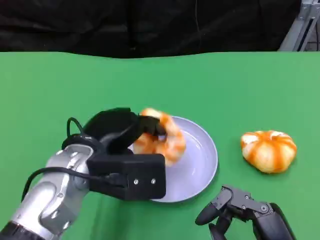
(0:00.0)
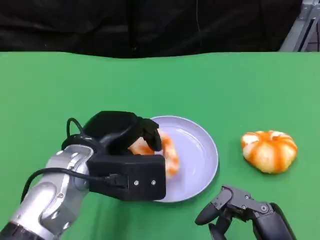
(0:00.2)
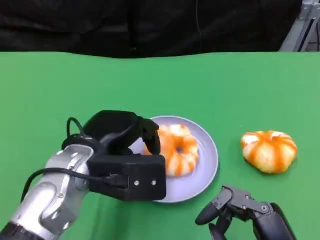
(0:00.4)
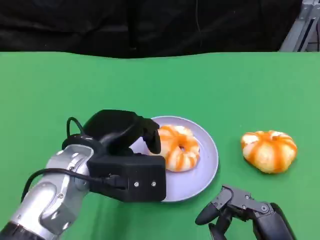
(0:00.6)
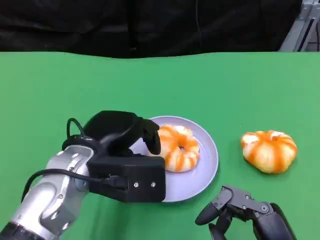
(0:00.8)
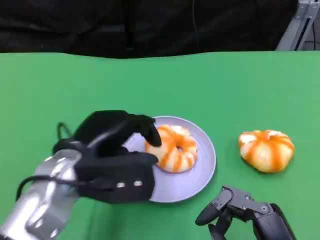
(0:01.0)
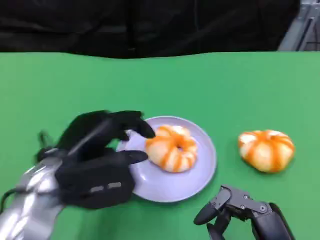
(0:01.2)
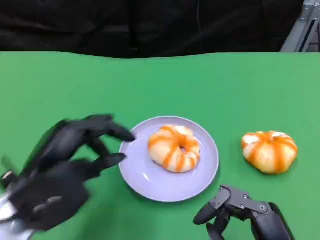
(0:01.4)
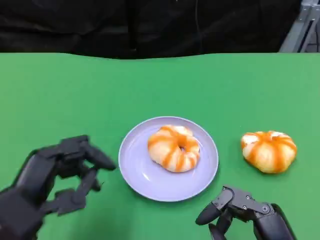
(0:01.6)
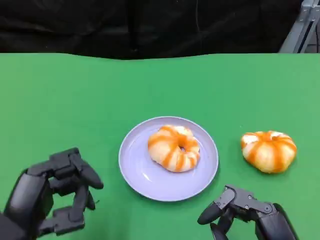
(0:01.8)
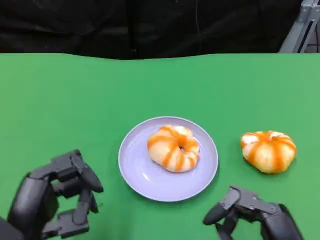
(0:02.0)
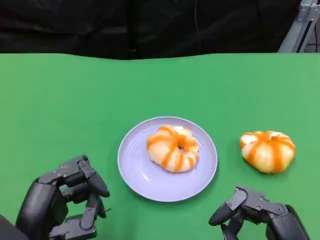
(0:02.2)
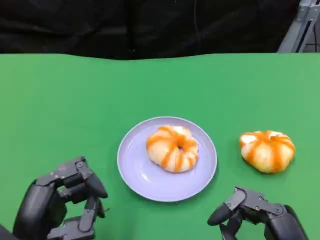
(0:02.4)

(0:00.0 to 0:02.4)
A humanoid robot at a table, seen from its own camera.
Task of the whole recording: Grasp the bread from the table and place it into the plate.
0:00.0 - 0:01.2: The left hand shifts by about 5 cm.
0:01.2 - 0:02.4: The left hand goes roughly 10 cm backward.

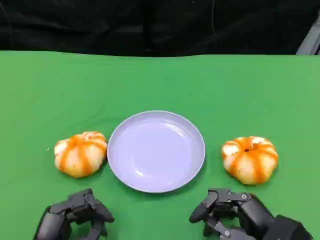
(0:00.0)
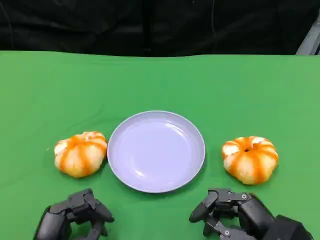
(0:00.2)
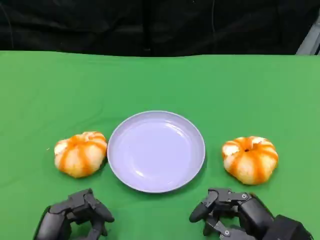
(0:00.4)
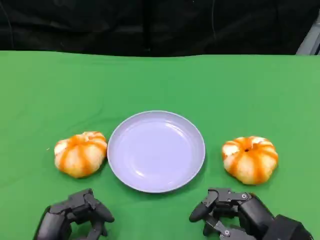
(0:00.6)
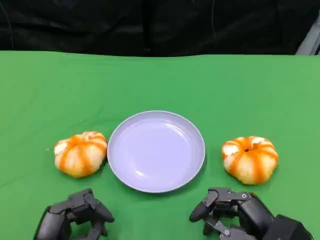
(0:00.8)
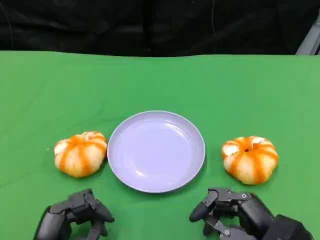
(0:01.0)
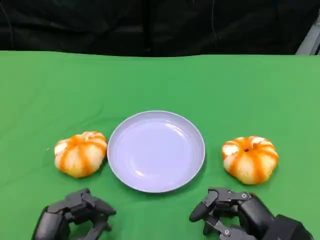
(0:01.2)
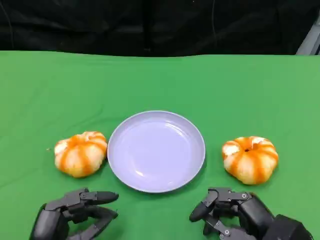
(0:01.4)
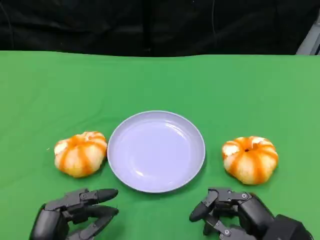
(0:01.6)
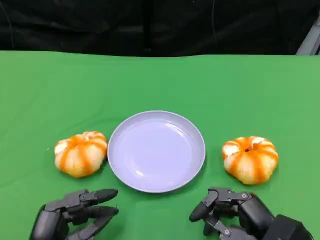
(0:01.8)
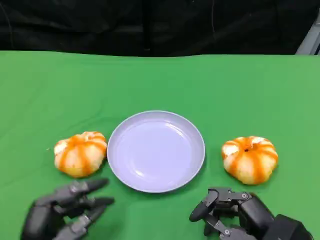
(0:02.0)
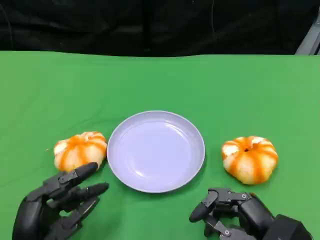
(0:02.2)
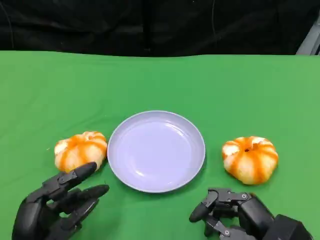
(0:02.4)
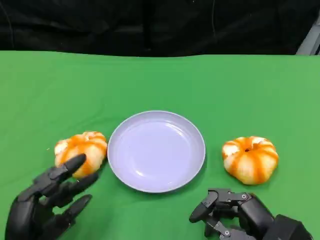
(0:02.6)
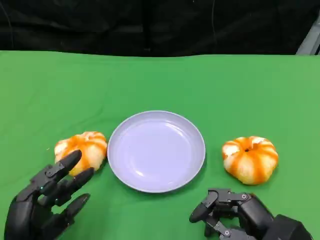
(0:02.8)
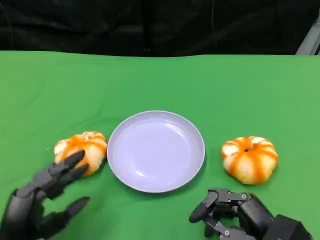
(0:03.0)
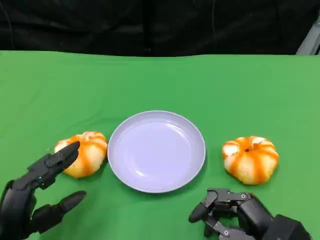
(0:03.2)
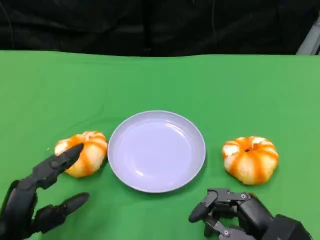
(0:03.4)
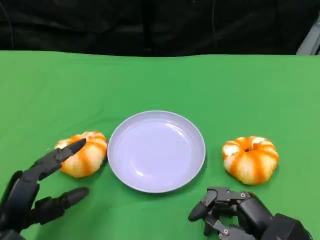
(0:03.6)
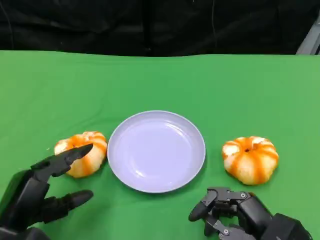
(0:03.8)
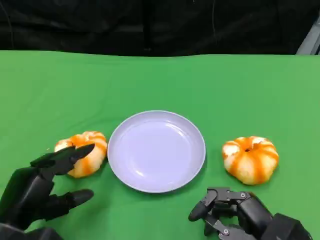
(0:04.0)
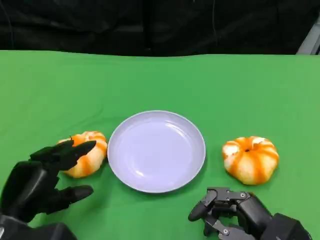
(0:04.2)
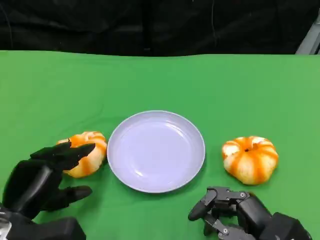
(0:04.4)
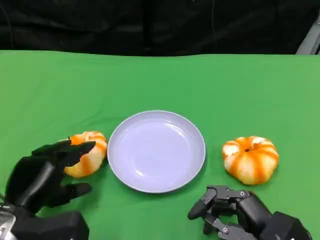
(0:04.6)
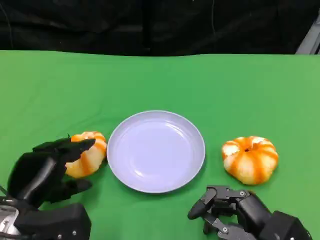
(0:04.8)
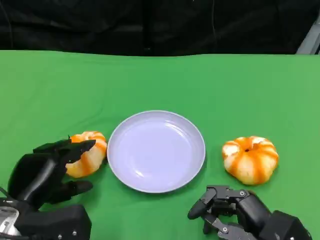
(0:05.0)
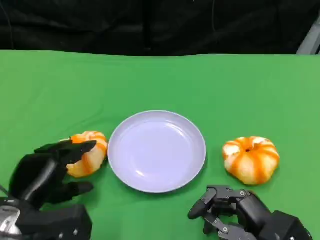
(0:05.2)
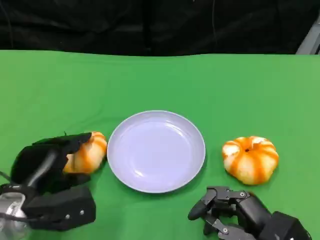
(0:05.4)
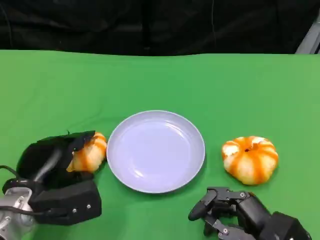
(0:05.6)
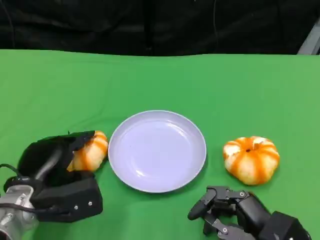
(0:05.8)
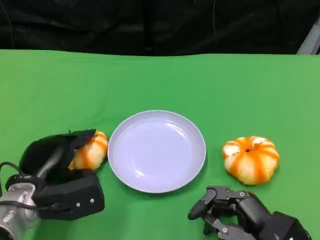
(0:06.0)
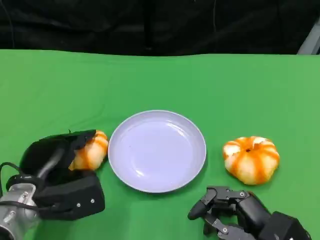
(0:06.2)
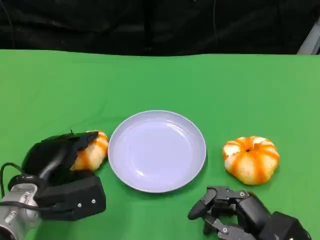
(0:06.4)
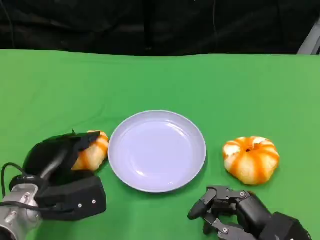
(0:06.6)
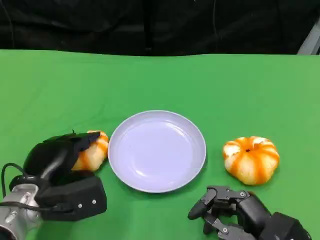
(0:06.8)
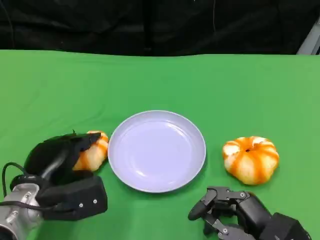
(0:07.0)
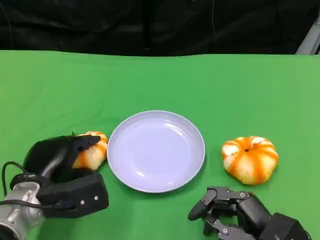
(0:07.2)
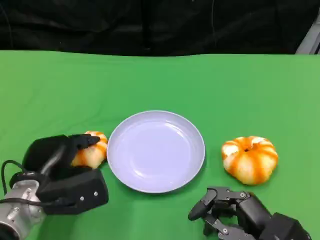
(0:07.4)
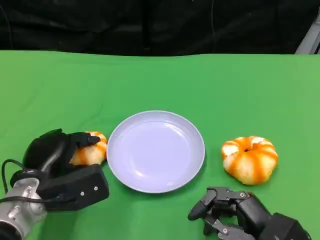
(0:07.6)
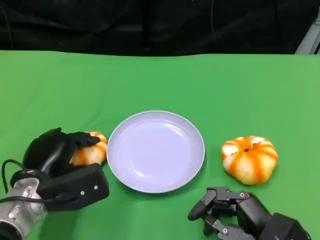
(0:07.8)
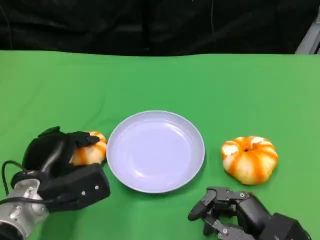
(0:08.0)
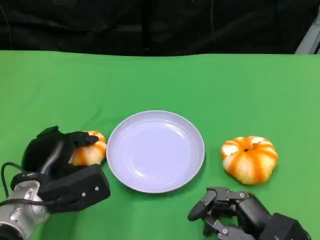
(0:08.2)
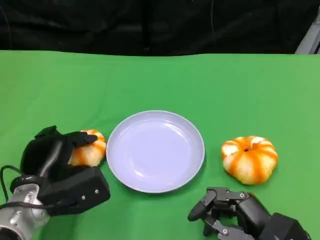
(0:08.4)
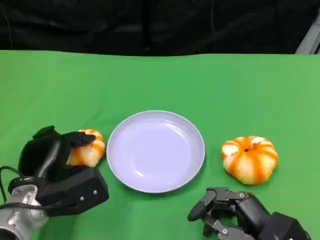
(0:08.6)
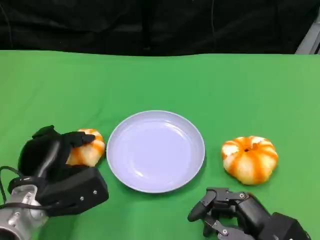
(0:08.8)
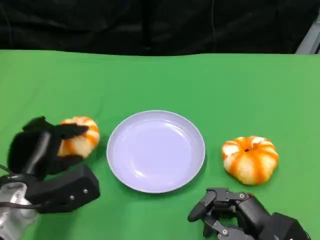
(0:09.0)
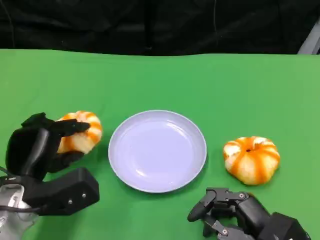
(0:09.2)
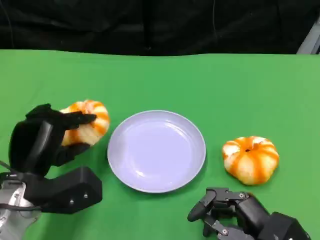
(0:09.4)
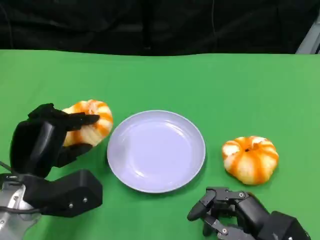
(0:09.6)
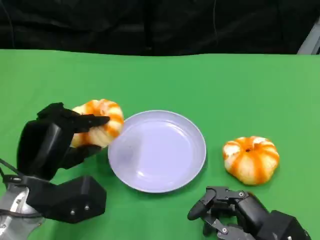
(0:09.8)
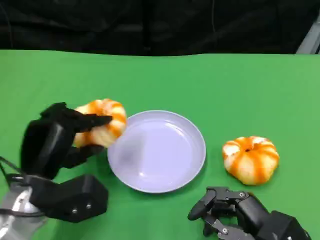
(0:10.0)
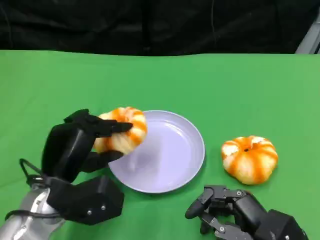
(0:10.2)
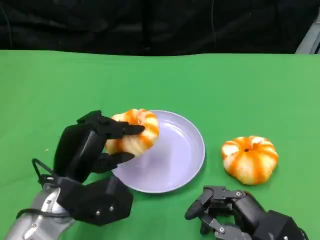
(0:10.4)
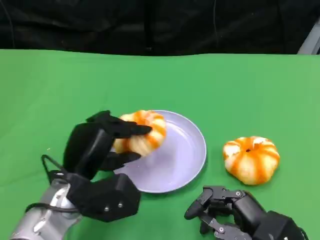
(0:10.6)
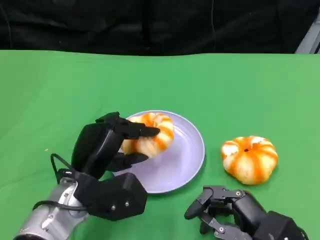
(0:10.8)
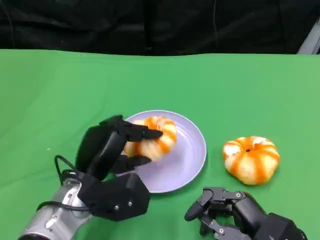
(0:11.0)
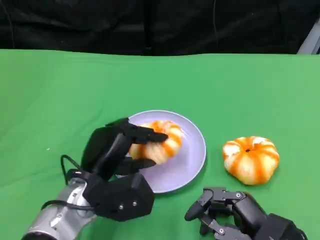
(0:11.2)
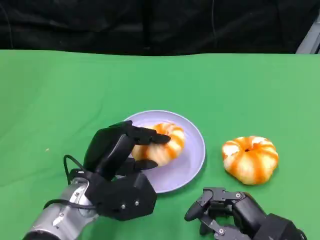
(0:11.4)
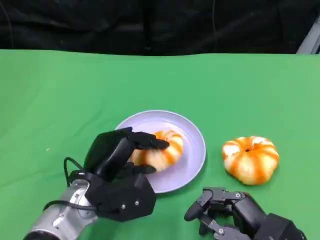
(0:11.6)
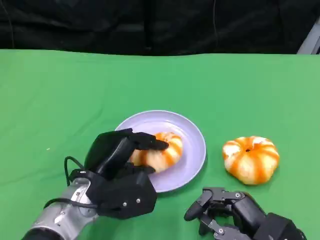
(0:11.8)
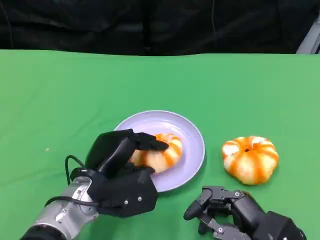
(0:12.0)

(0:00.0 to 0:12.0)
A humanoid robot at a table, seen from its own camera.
Task of the whole recording: Grasp the bread from the table and place it into the plate.
0:00.0 - 0:01.6: The two hands keep their place.
0:01.6 - 0:03.0: The hands make only small movements.
0:03.0 - 0:04.4: The left hand heads forward, covering roughly 5 cm.
0:04.4 - 0:06.0: The left hand ends up some 5 cm from where it was.
0:06.0 - 0:09.0: The hands make only small movements.
0:09.0 - 0:10.4: The left hand travels to the right by approximately 5 cm.
0:10.4 - 0:12.0: The hands make only small movements.

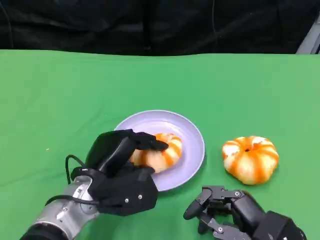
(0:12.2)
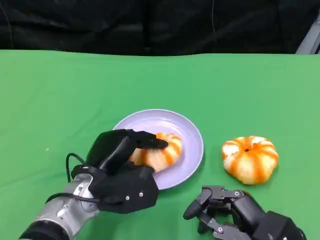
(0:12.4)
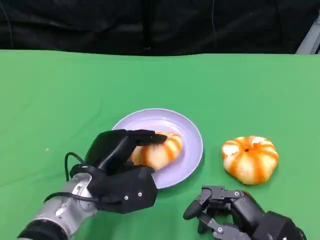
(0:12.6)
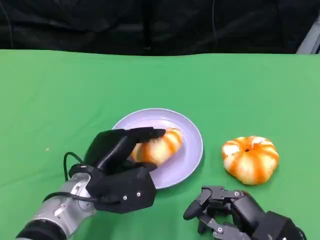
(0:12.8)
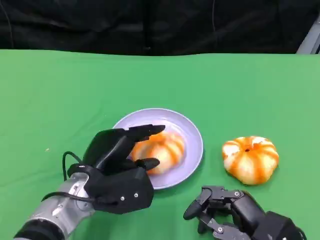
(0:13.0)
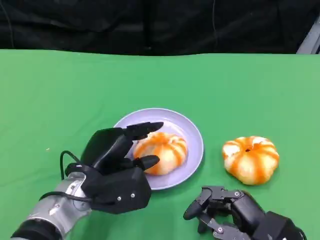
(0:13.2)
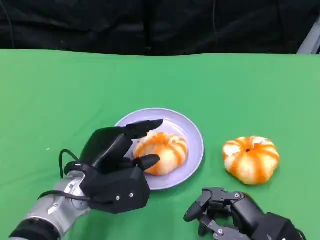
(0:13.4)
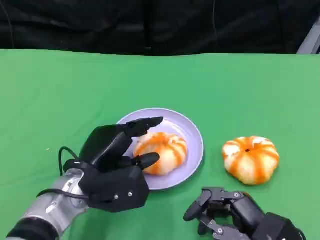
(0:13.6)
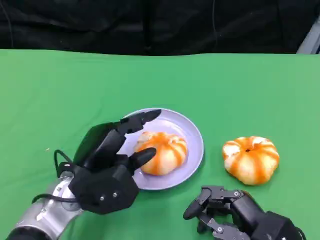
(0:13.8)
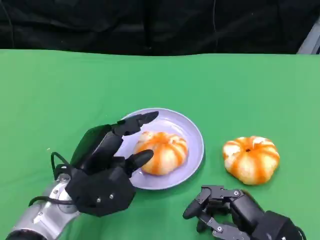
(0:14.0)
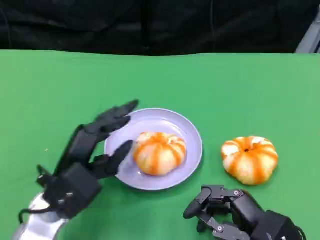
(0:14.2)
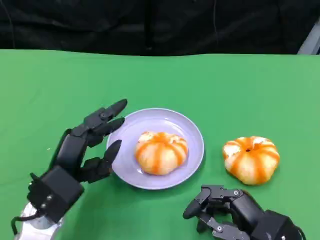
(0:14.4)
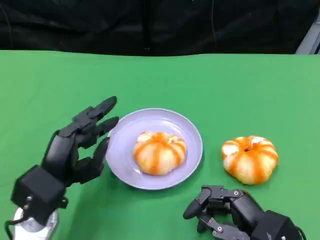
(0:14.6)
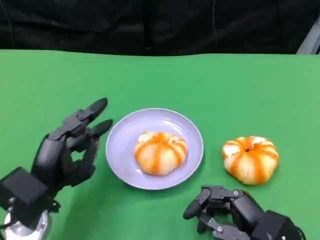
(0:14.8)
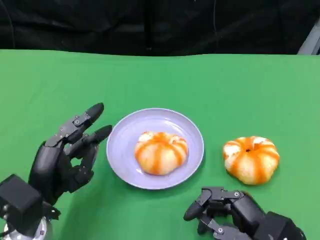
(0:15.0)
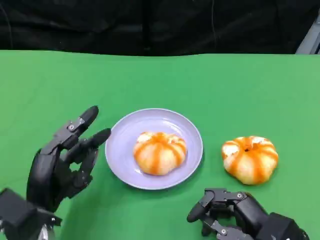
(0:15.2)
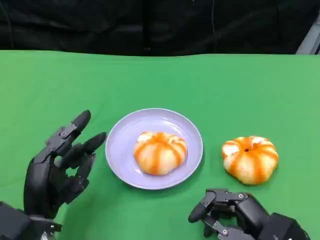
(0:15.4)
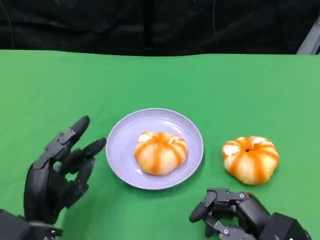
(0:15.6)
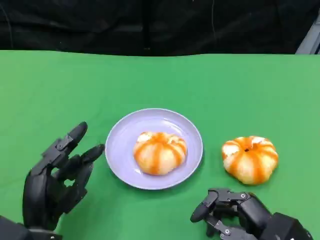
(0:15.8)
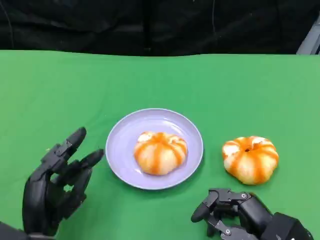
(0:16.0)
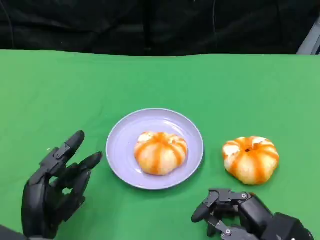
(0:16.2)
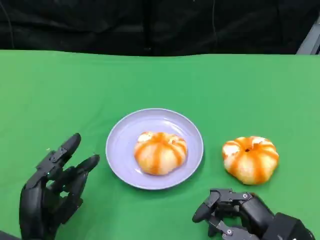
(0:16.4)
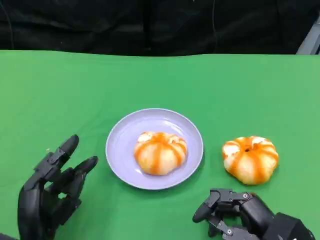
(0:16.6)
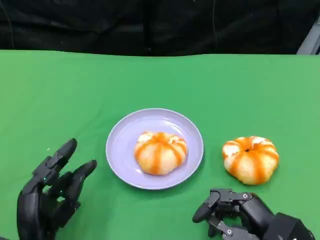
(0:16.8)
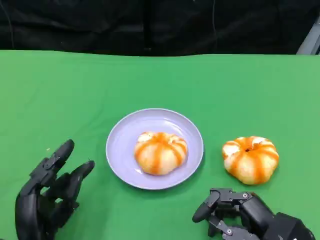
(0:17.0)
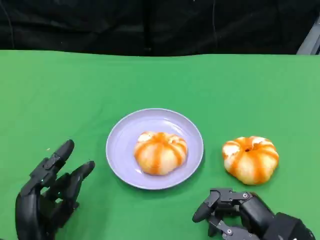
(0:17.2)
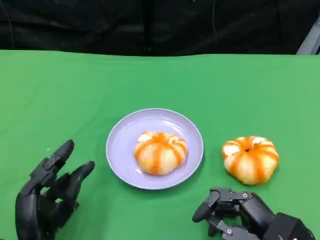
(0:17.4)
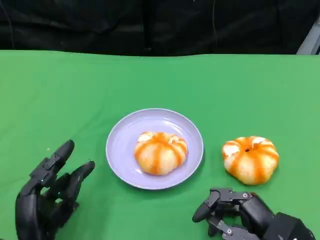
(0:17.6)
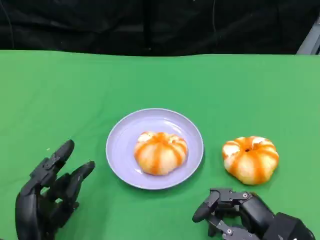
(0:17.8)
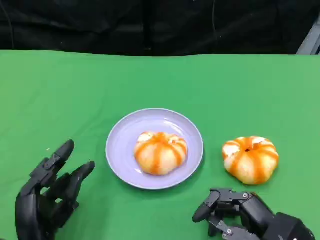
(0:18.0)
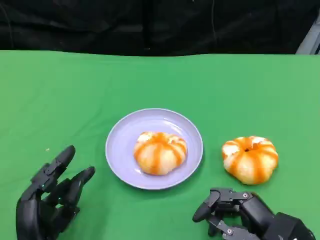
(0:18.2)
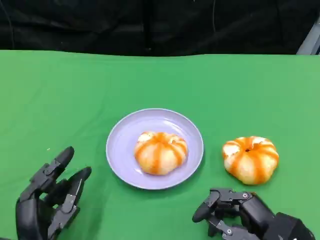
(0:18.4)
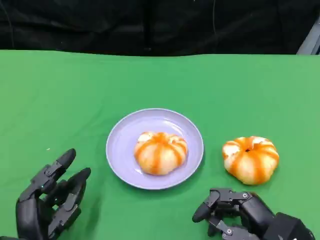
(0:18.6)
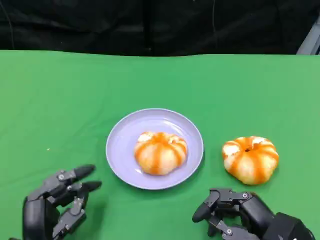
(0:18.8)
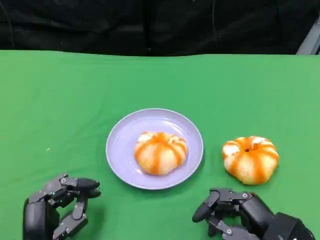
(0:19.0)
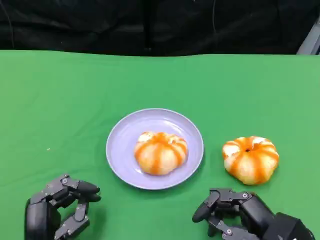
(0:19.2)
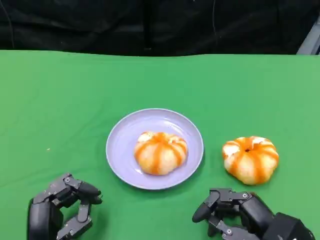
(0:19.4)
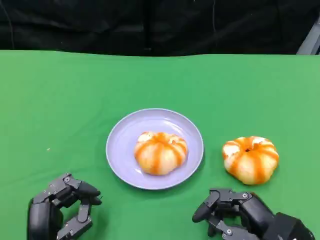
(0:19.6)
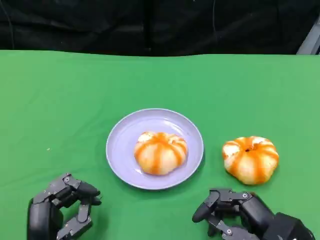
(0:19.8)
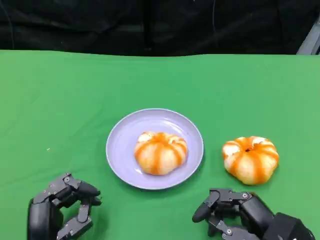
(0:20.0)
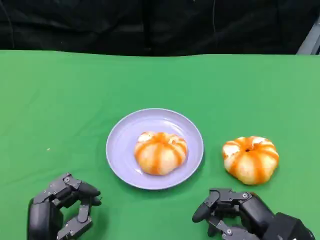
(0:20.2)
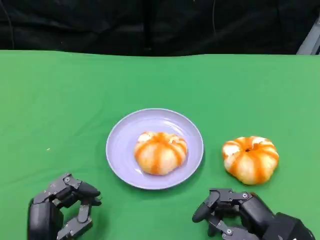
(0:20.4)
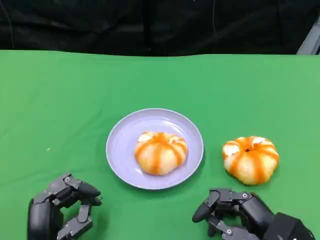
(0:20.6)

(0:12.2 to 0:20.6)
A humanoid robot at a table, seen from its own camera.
Task of the whole recording: Grasp the bread from the table and place it into the plate.
0:12.2 - 0:13.6: There are only small adjustments of the hands.
0:13.6 - 0:15.0: The left hand travels to the left by about 5 cm.
0:15.0 - 0:16.4: The left hand shifts by about 5 cm.
0:16.4 - 0:19.2: The hands stay close to where they were, moving slightly.
0:19.2 - 0:20.6: Neither hand changes place.
